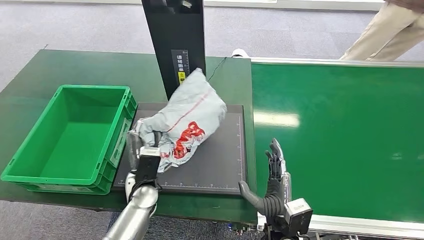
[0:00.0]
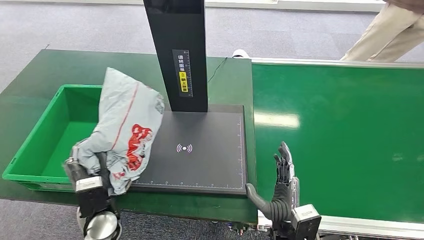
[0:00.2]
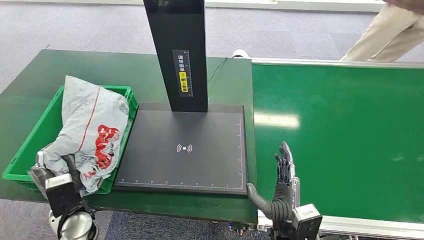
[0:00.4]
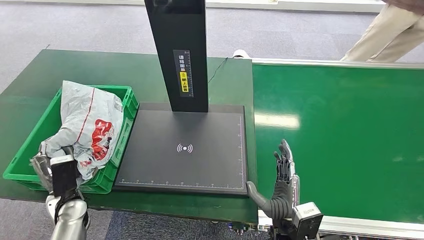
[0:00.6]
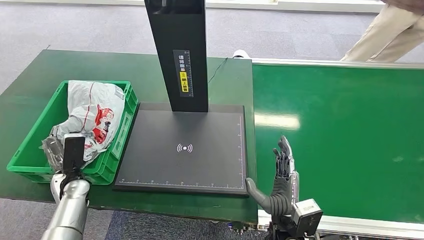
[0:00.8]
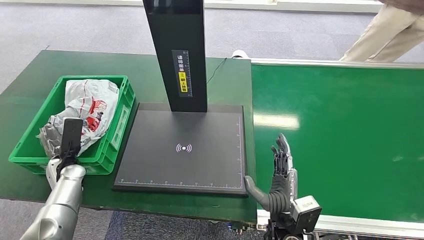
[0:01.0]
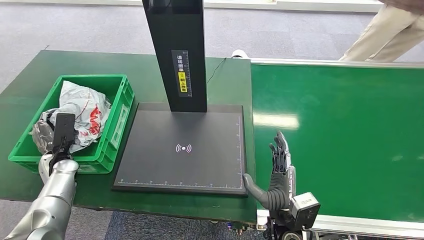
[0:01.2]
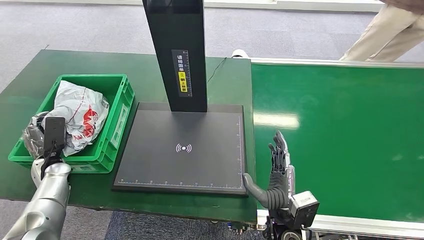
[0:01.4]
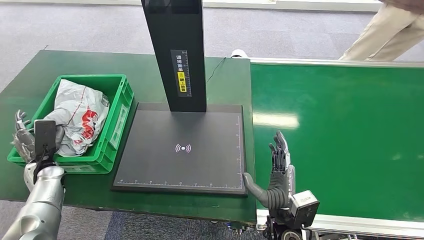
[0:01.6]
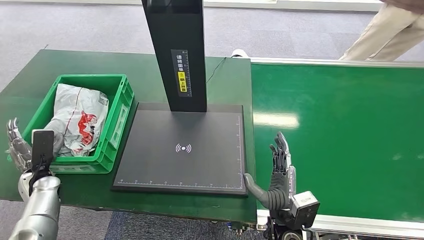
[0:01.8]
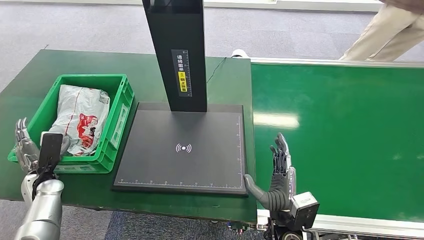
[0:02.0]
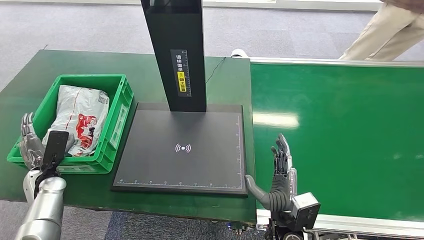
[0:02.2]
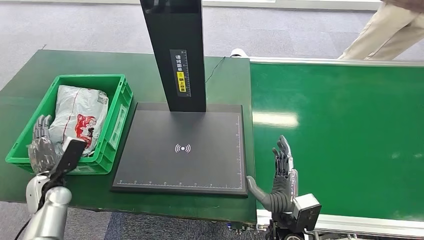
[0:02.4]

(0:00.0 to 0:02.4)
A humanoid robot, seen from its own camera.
Step, 0:00.4 - 0:02.4: Place the package into the parcel locker.
0:01.2 - 0:02.4: The left hand travels backward by approximately 5 cm.
